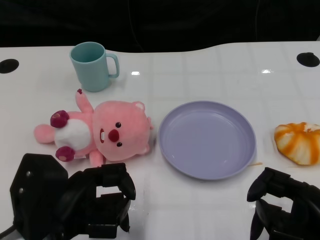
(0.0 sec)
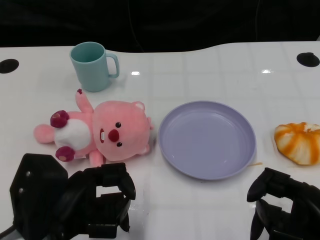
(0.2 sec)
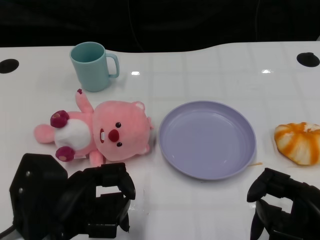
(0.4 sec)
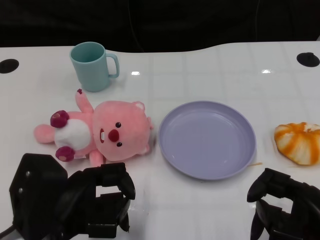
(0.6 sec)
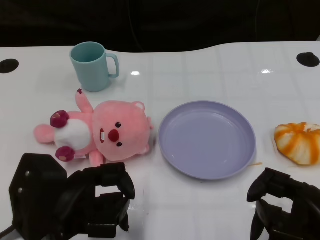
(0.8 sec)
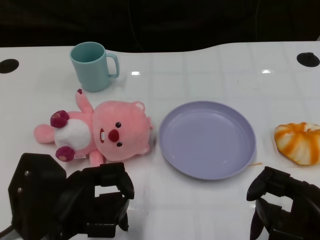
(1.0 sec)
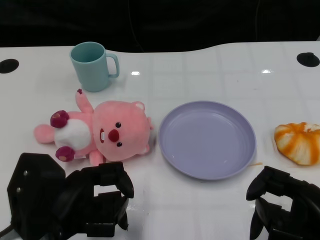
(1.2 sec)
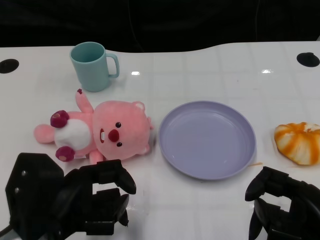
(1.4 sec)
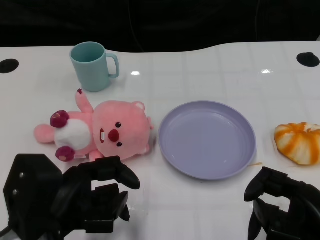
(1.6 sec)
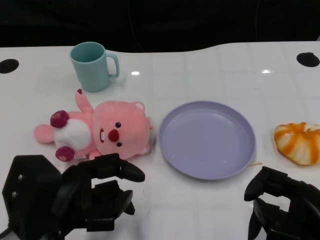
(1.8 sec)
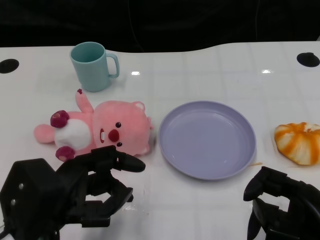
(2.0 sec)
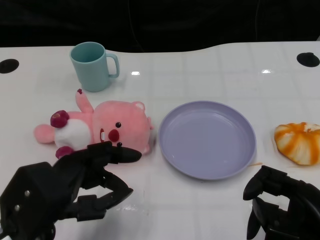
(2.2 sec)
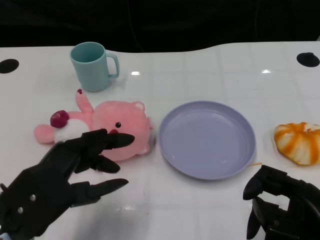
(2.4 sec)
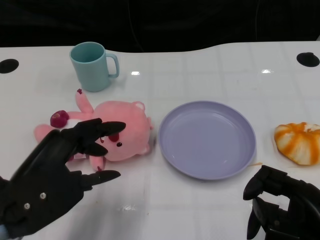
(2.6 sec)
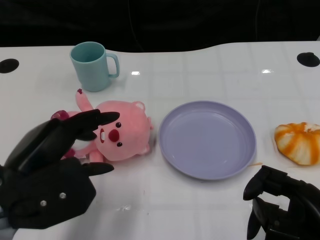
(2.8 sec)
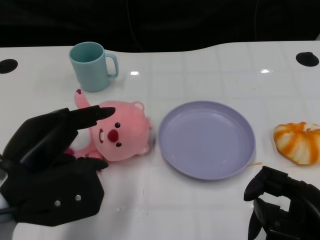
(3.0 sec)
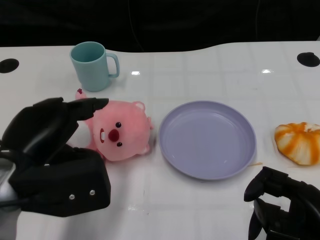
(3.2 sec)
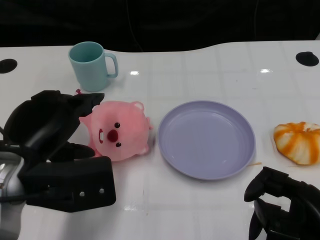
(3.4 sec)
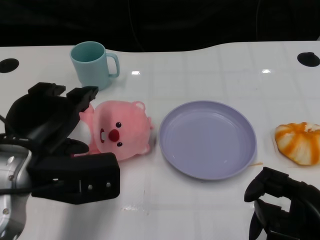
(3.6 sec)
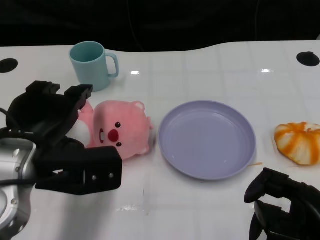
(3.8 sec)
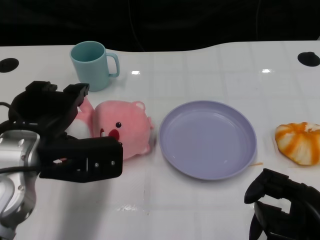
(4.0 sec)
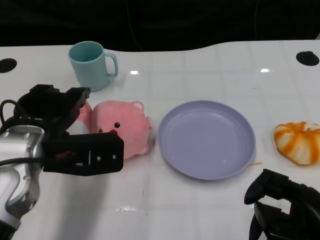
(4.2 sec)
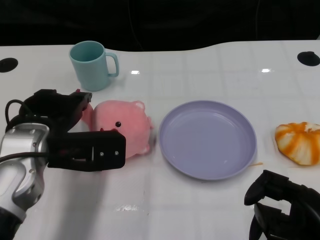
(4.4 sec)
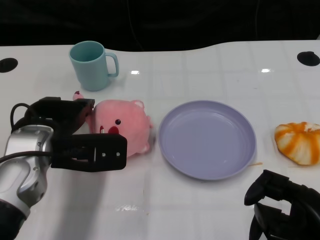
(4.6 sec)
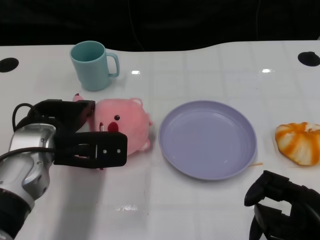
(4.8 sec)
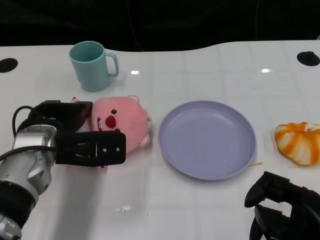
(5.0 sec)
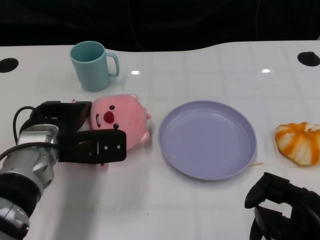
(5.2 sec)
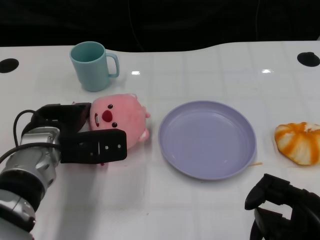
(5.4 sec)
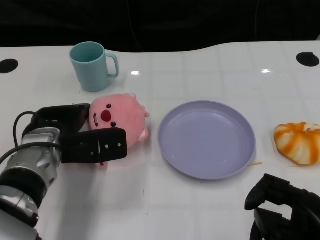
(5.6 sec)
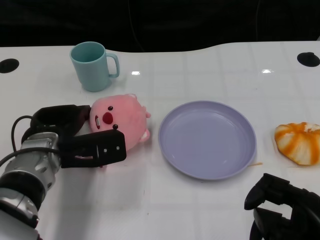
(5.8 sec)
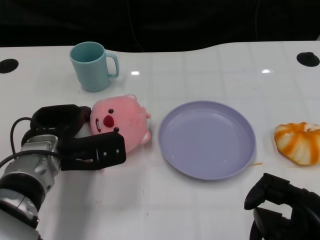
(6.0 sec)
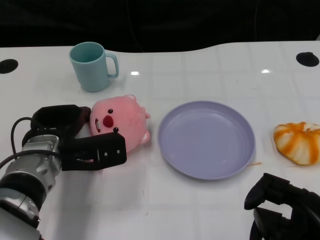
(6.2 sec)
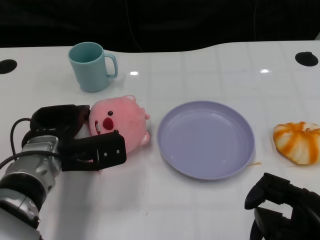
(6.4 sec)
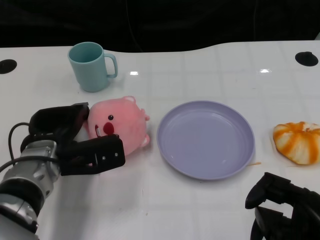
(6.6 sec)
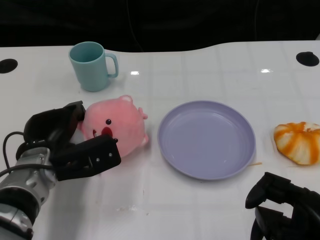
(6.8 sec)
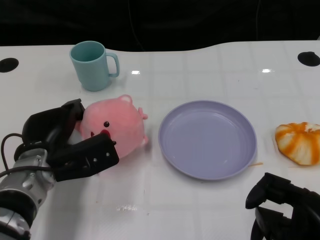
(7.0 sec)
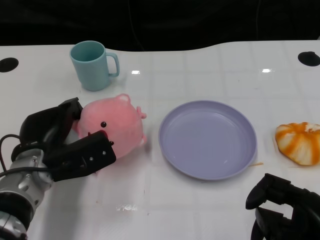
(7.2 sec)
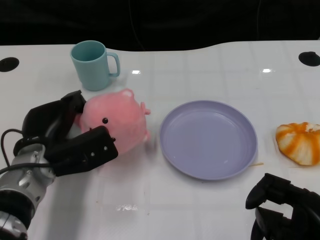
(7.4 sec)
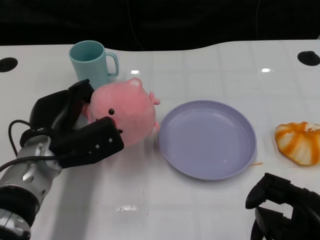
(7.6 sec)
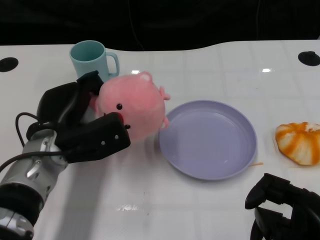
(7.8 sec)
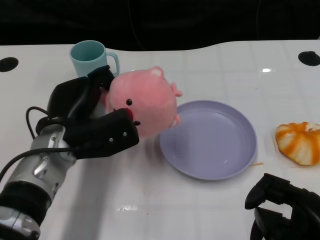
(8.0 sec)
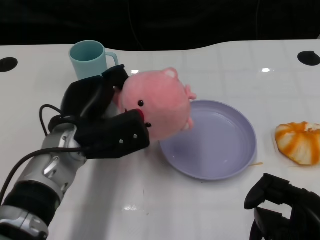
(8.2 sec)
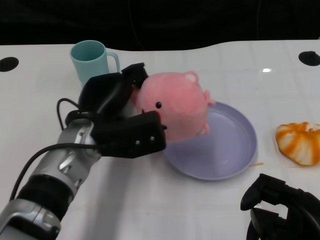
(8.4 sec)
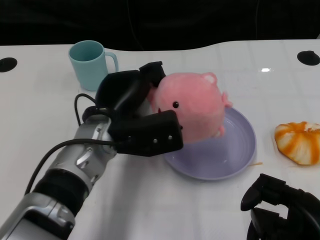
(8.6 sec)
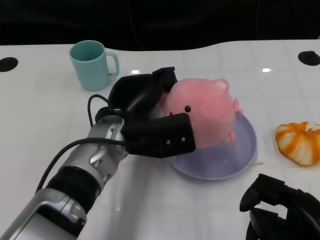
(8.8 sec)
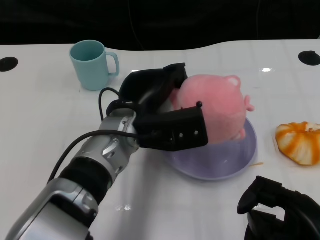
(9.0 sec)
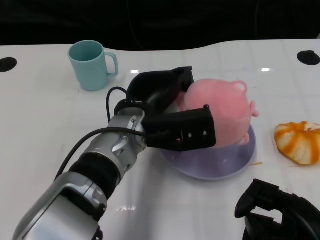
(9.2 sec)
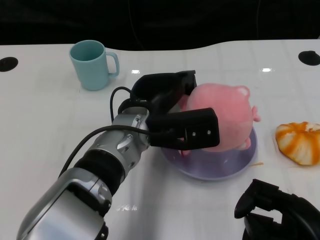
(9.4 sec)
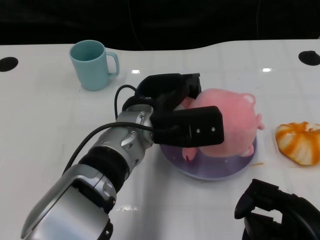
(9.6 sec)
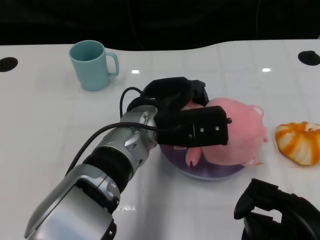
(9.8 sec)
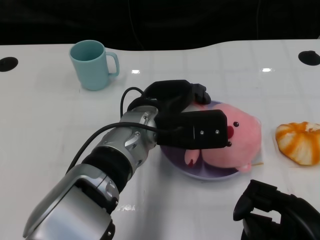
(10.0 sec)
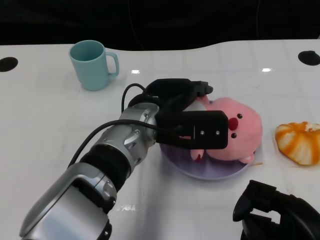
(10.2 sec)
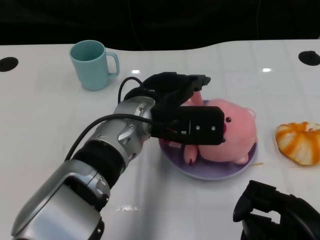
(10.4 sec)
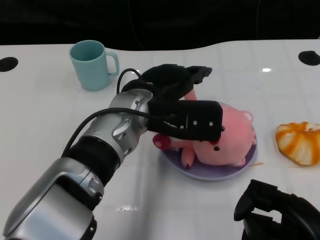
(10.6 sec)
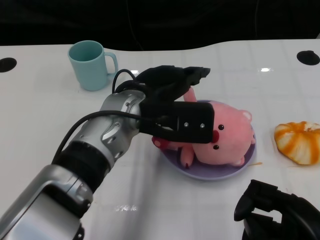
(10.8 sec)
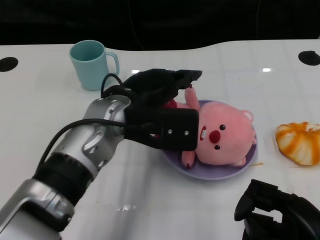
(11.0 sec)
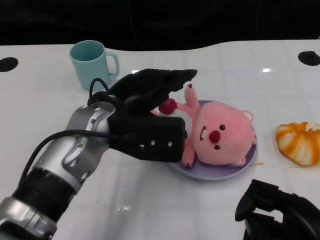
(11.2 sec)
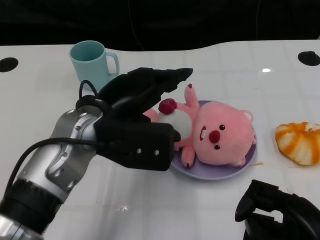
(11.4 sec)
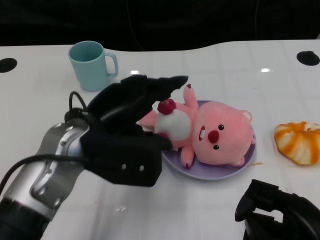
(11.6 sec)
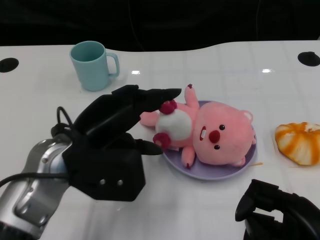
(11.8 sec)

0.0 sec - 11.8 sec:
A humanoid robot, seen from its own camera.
Task of the whole recording: Pick up the doll on one side of the plate and place it into the plate.
Step, 1.2 sec - 7.2 sec: Grasp the pink doll with the left gripper.
Step, 7.4 sec - 10.6 sec: Place the pink doll into the plate with the left gripper.
1.4 sec - 3.0 sec: The left hand shifts approximately 5 cm upward.
3.0 sec - 4.4 sec: The left hand is displaced forward by roughly 10 cm.
4.4 sec - 6.0 sec: The left hand travels downward by approximately 5 cm.
7.4 sec - 8.8 sec: The left hand shifts approximately 10 cm to the right and upward.
10.4 sec - 11.8 sec: The left hand goes roughly 10 cm to the left and backward.

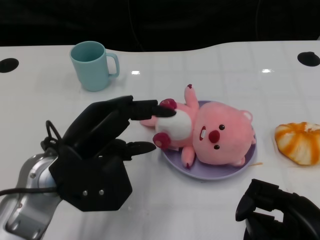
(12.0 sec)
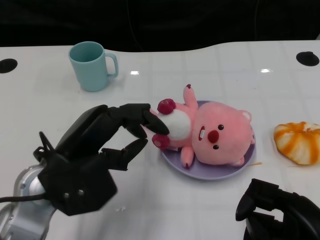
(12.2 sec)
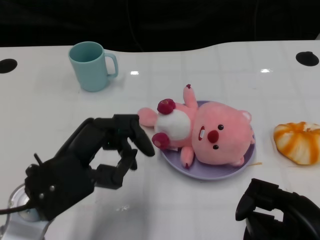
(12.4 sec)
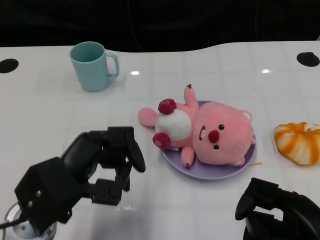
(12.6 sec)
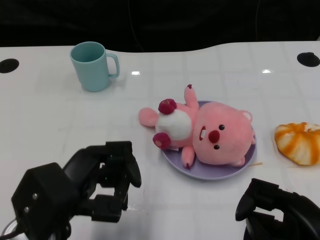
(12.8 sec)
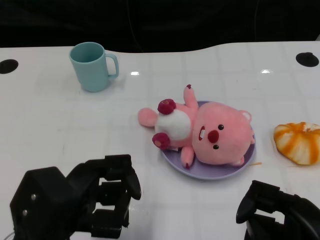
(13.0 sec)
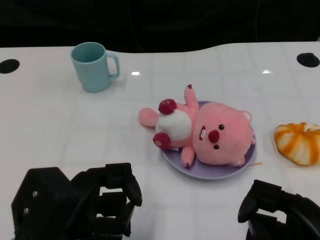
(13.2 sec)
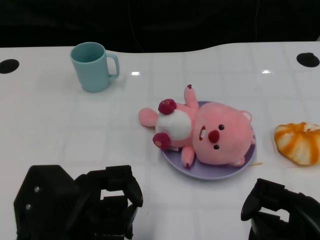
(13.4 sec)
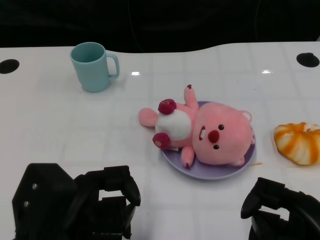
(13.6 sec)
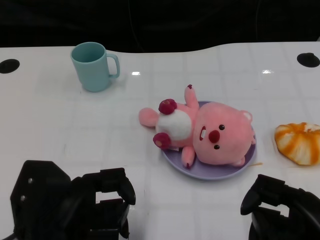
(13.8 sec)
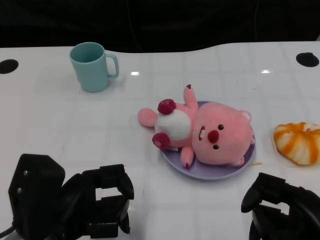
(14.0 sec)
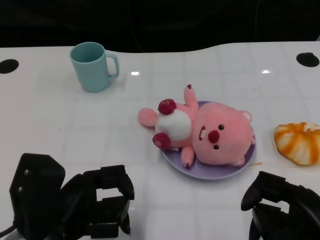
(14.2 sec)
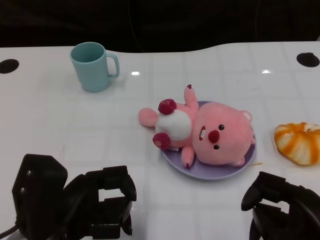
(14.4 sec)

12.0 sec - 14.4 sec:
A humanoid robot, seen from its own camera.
Task of the whole recording: Pick up the doll on one side of the plate and place it into the plate.
12.0 sec - 13.2 sec: The left hand goes some 10 cm backward.
13.2 sec - 14.4 sec: The hands make only small movements.

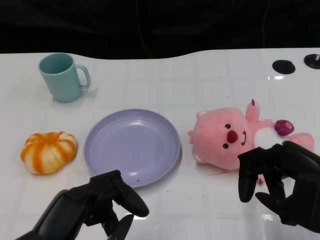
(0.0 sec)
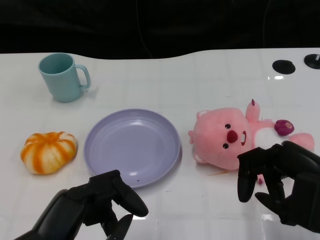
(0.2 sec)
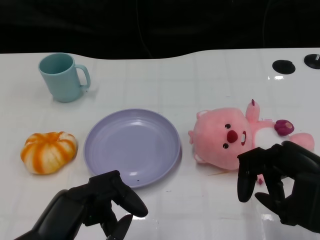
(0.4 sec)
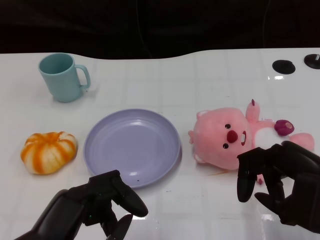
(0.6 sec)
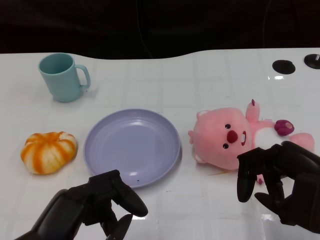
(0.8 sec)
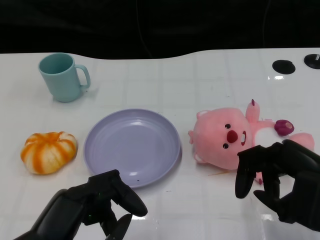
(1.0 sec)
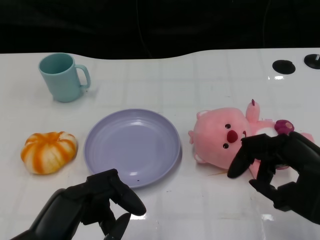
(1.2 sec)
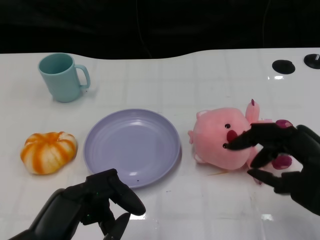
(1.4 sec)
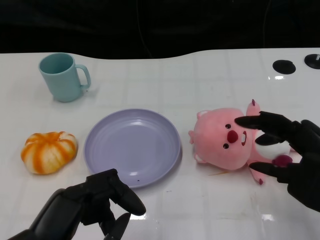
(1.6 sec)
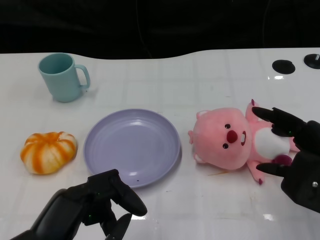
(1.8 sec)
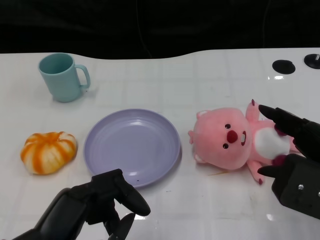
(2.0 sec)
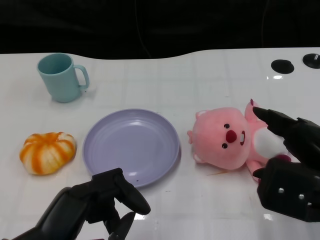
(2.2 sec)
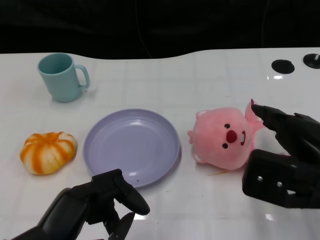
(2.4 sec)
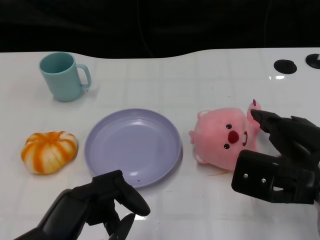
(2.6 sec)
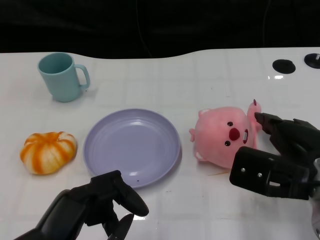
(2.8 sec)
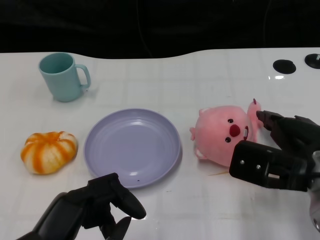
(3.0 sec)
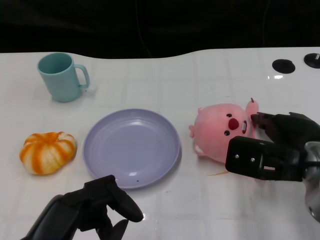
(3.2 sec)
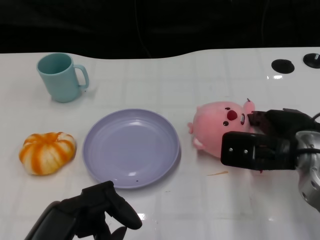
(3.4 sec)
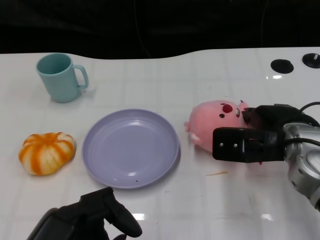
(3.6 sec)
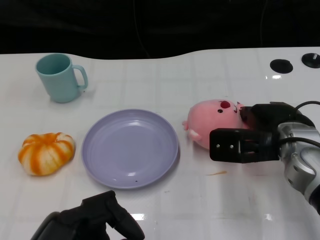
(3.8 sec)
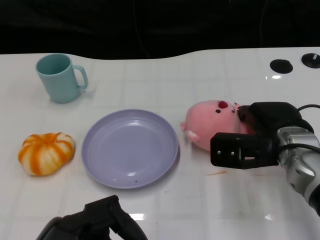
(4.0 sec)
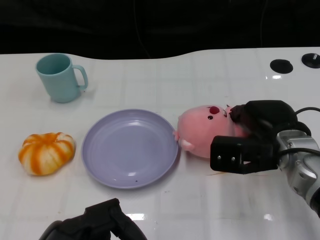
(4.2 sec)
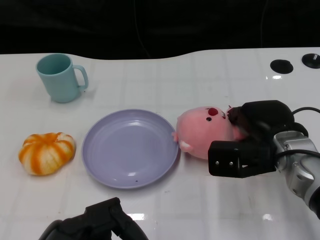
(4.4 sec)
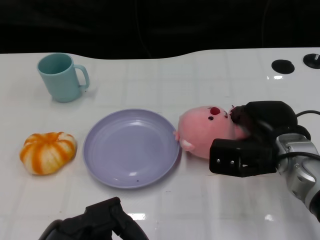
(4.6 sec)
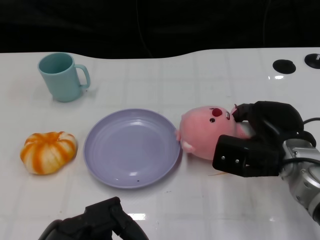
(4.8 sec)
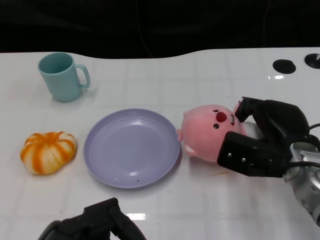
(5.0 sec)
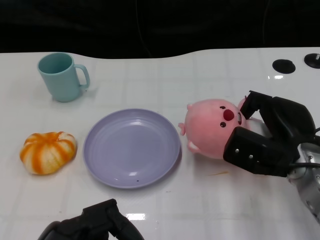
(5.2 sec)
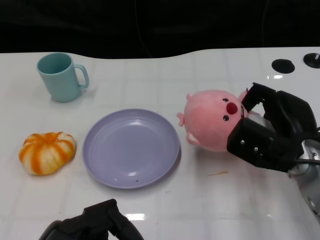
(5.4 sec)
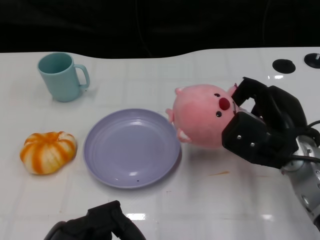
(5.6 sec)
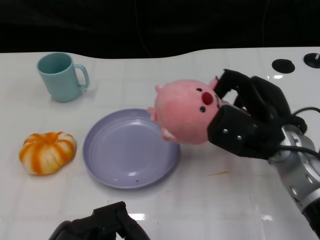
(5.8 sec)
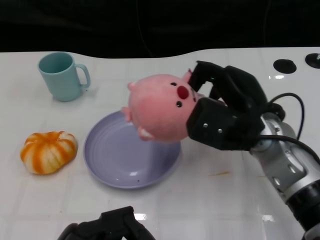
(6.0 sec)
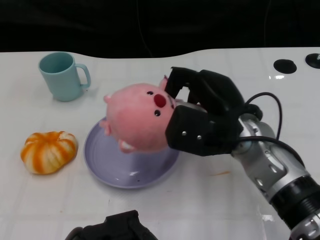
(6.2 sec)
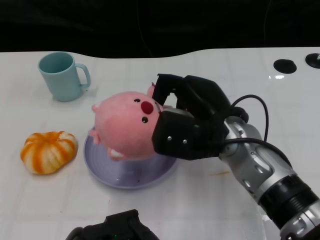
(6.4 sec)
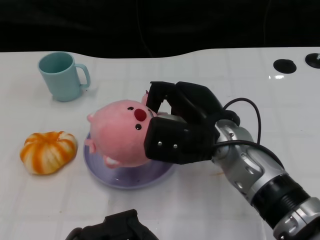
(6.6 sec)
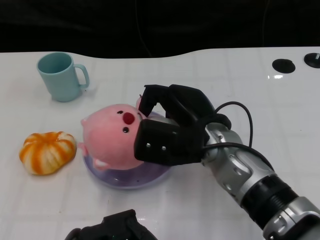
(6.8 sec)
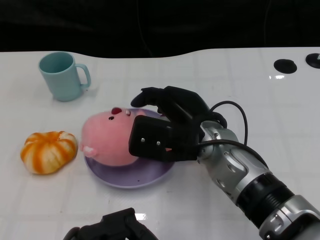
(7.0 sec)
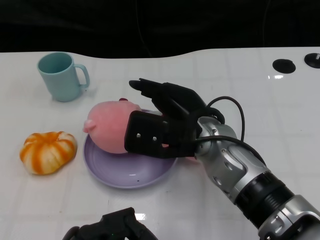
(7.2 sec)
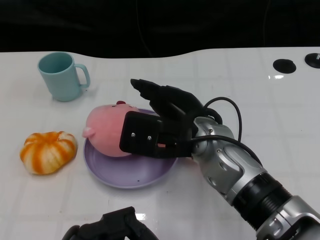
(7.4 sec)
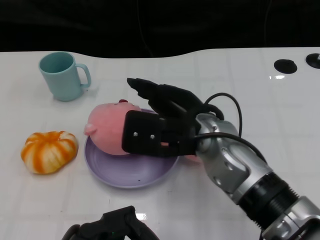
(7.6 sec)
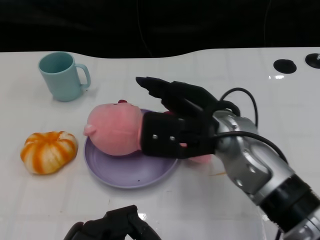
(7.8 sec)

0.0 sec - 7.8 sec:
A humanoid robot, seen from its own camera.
Task of the whole recording: Pick up the doll on the other side of the plate and place it into the plate.
Step, 1.0 sec - 5.8 sec: Grasp the pink doll with the right gripper.
1.6 sec - 3.2 sec: The right hand heads forward, covering about 5 cm.
3.2 sec - 4.6 sec: The right hand shifts by about 5 cm.
4.6 sec - 6.2 sec: The right hand travels to the left and upward by roughly 10 cm.
